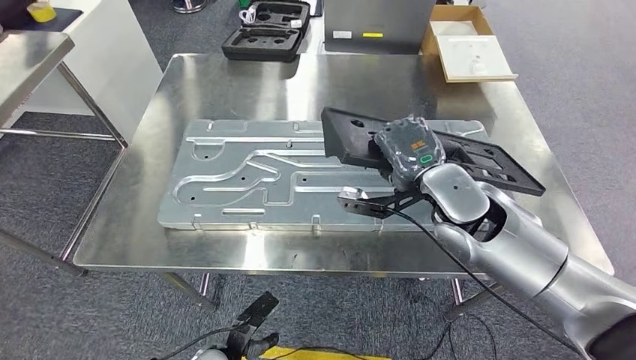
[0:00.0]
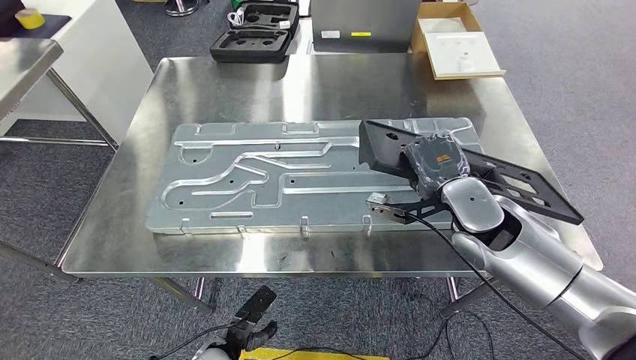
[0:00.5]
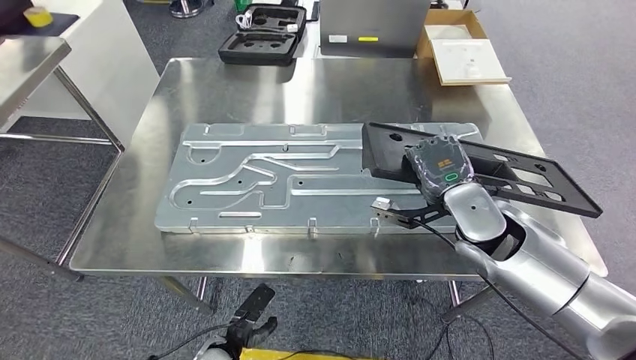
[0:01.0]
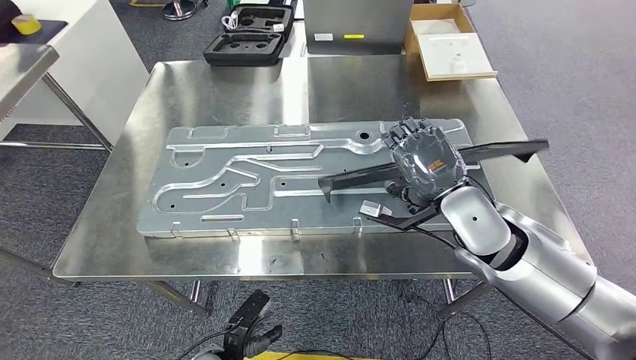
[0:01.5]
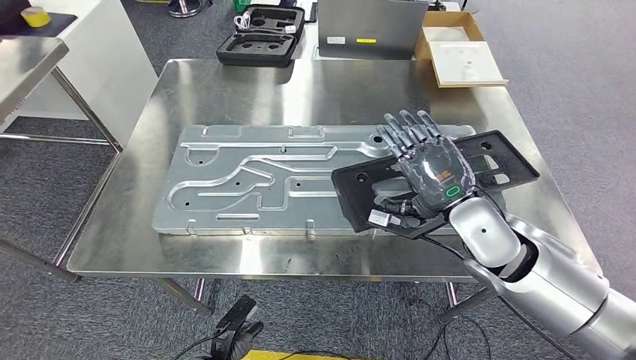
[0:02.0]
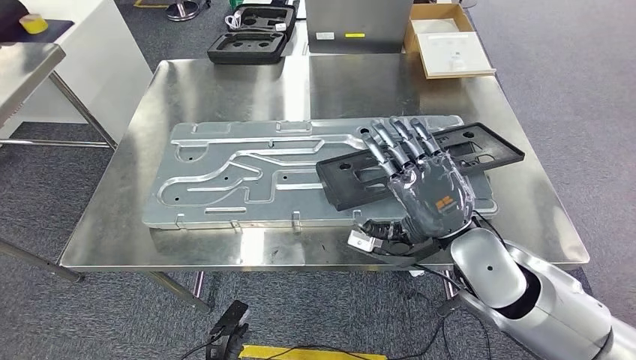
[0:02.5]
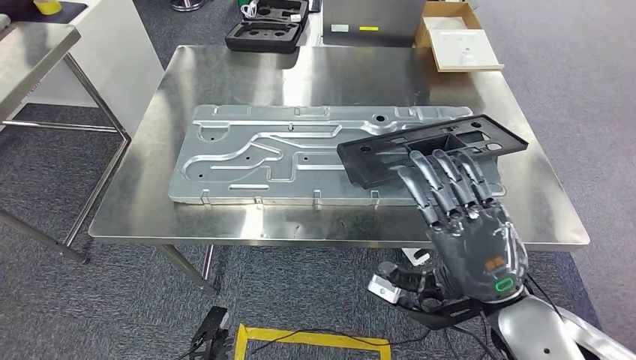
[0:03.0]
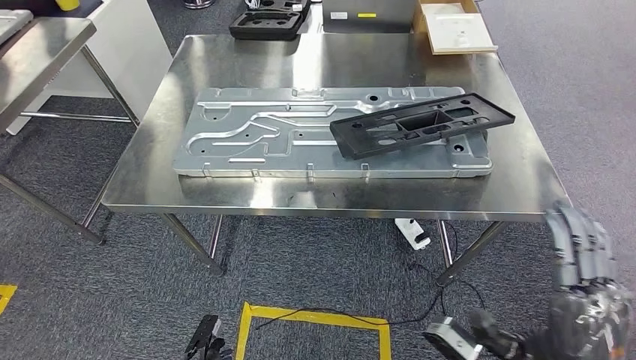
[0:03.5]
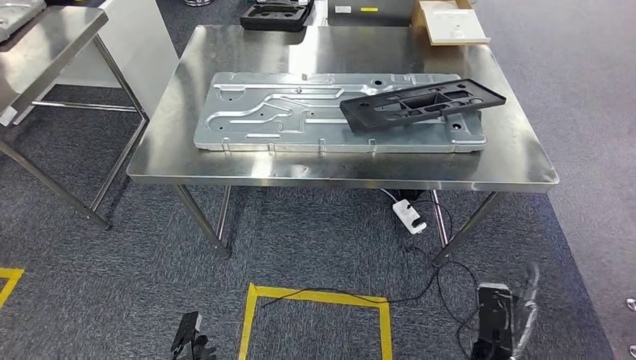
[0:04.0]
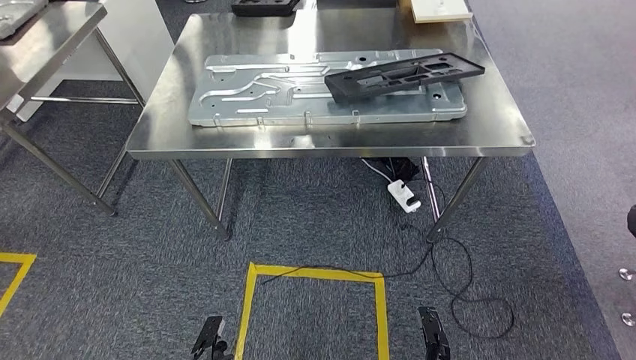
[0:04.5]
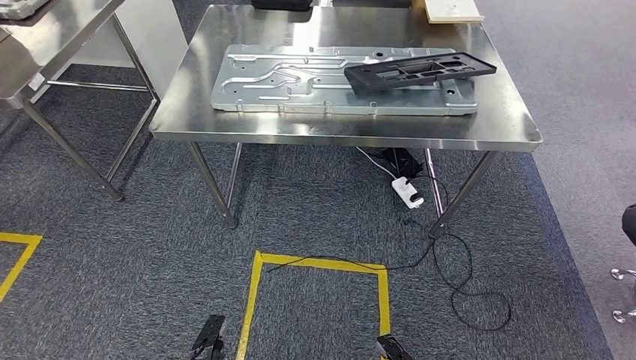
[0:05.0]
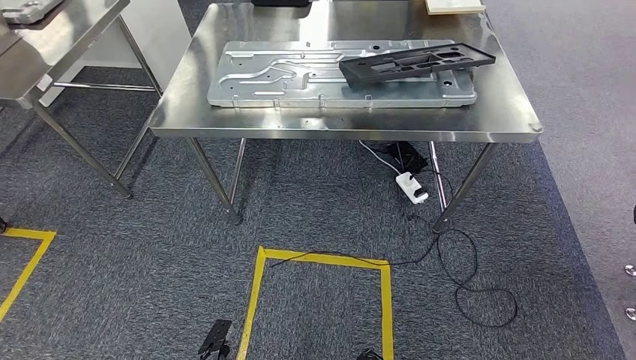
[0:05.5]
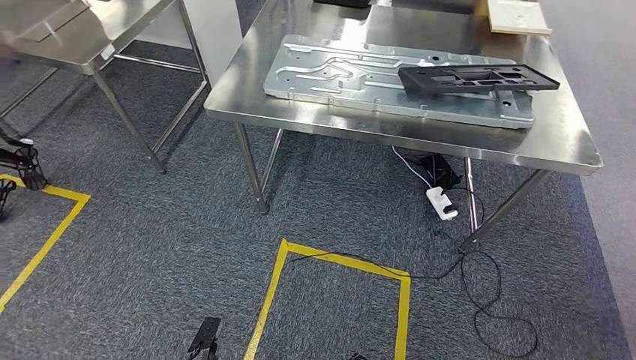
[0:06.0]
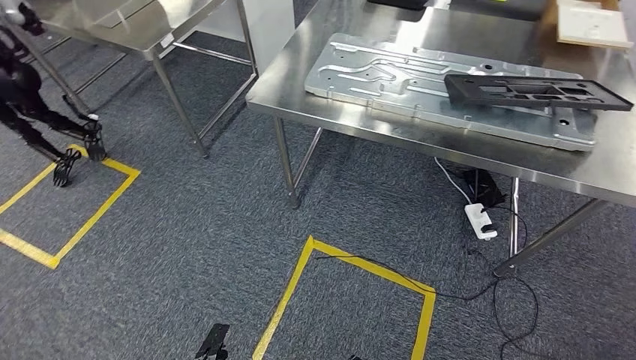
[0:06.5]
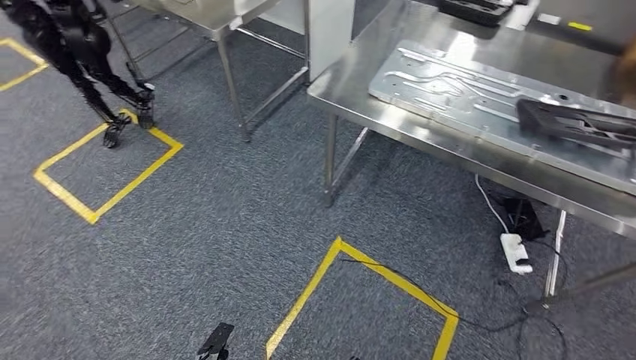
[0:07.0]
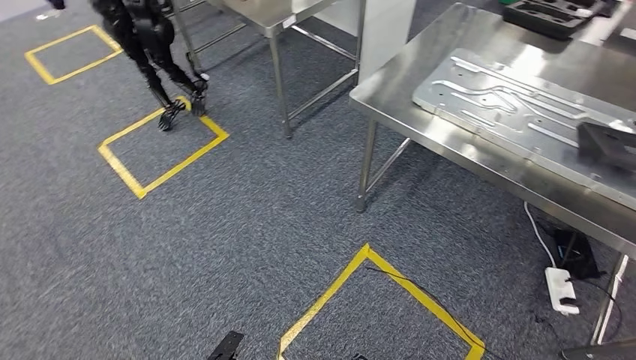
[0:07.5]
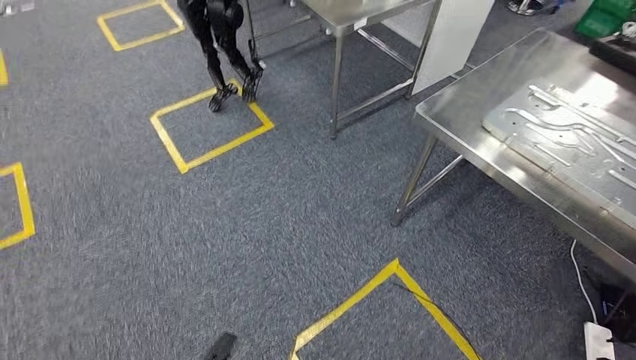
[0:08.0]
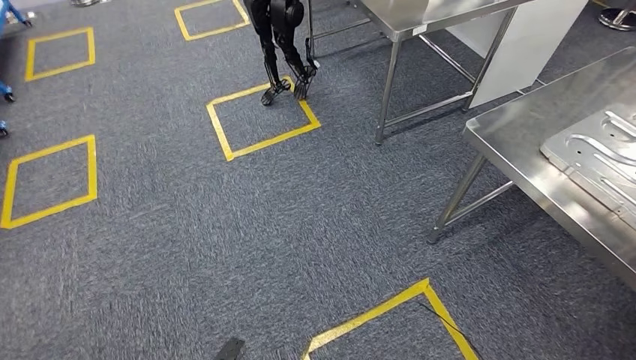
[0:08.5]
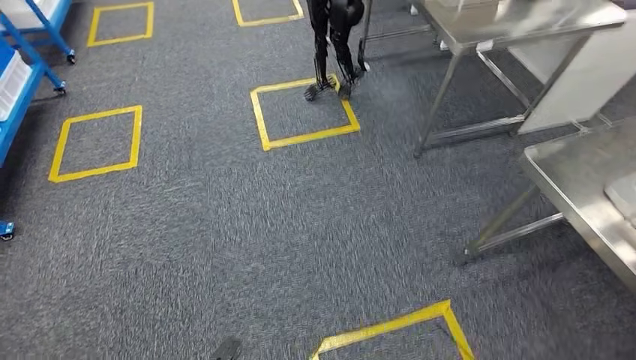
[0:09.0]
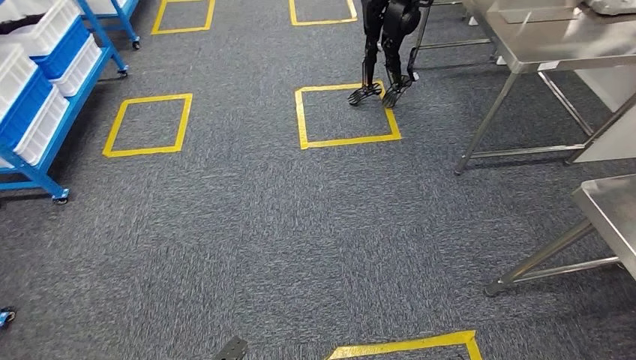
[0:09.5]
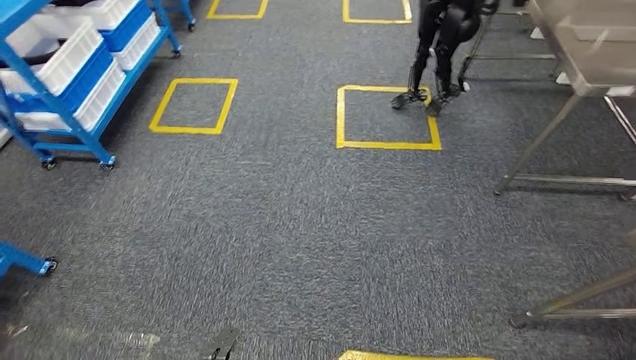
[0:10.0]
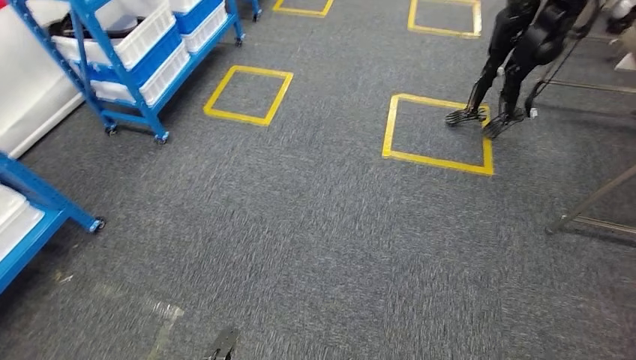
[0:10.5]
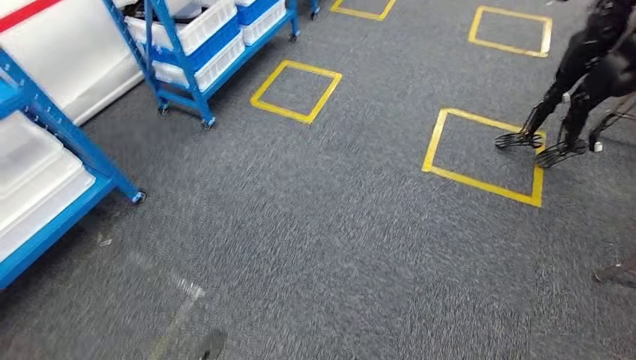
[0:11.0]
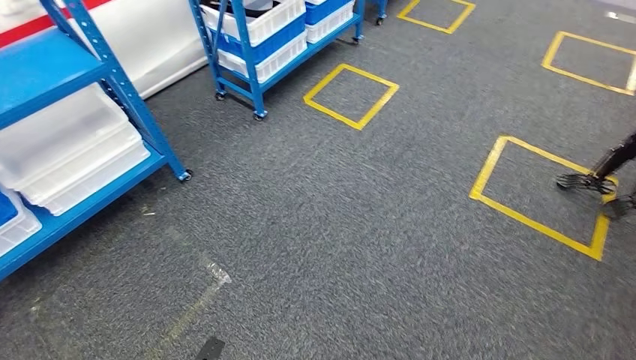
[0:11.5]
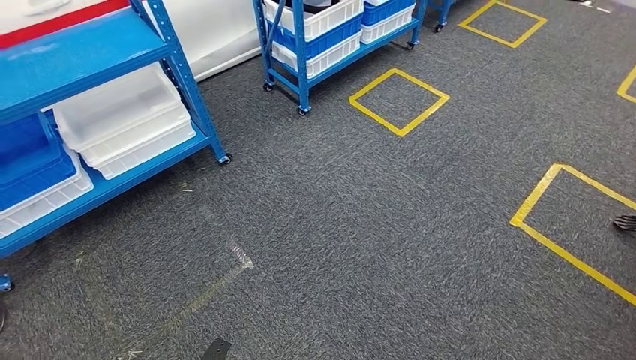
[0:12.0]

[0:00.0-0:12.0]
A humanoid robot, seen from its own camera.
Step, 0:00.0 to 0:04.0: Insert the large parts into the corresponding slots on the workbench.

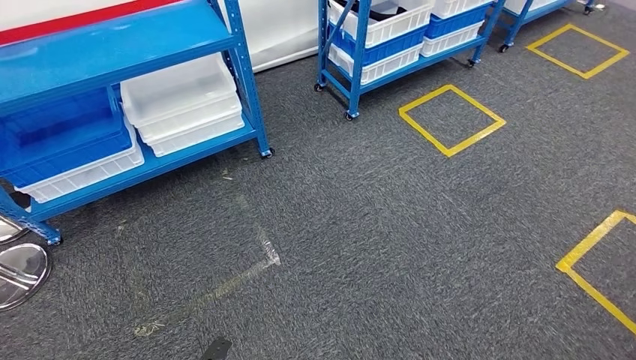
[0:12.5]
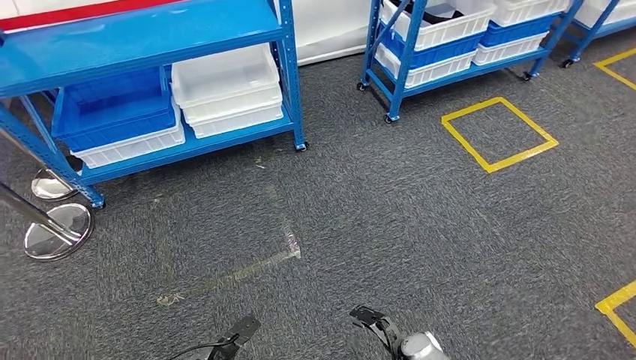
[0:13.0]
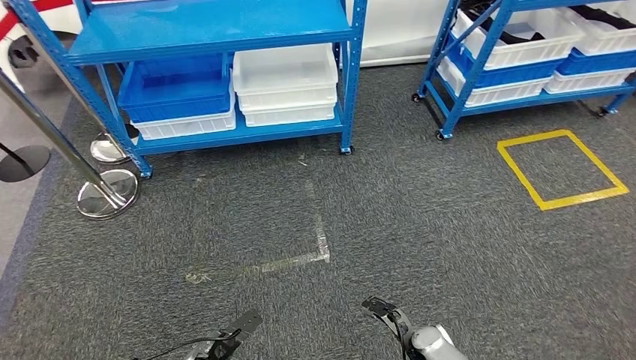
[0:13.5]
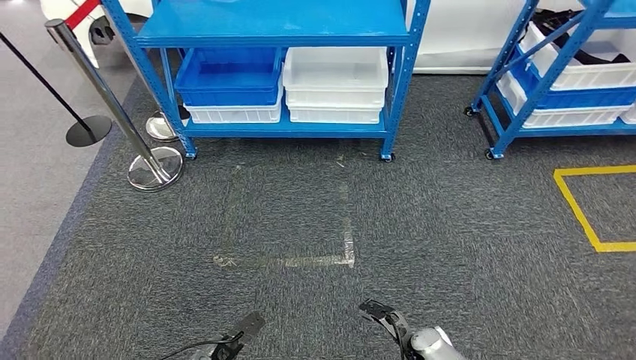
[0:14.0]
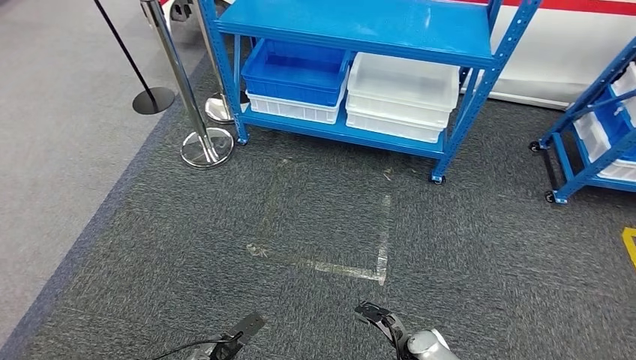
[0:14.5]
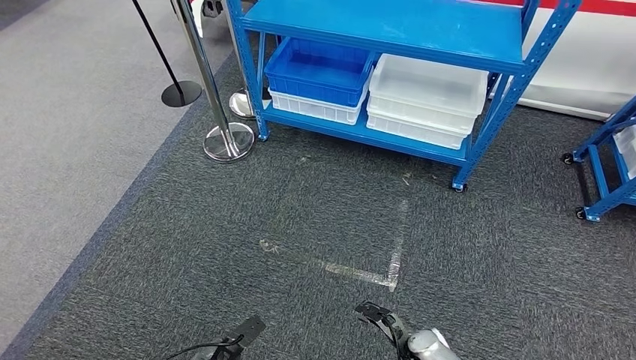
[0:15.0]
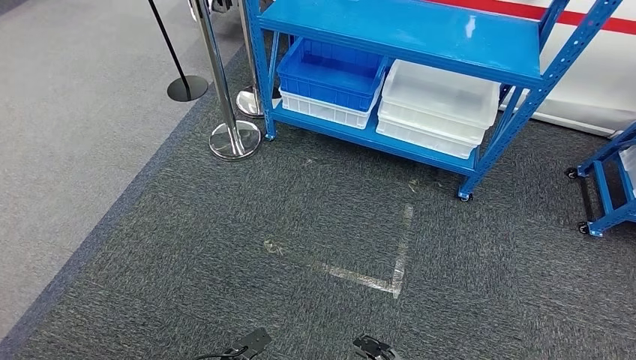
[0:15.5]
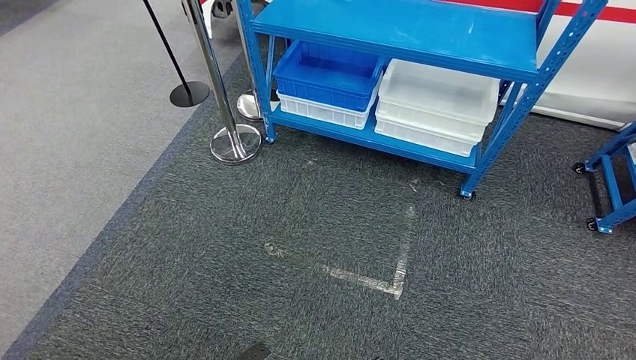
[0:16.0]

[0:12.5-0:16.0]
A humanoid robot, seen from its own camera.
Step, 0:12.5 to 0:16.0: Return to the initial position at the shelf.

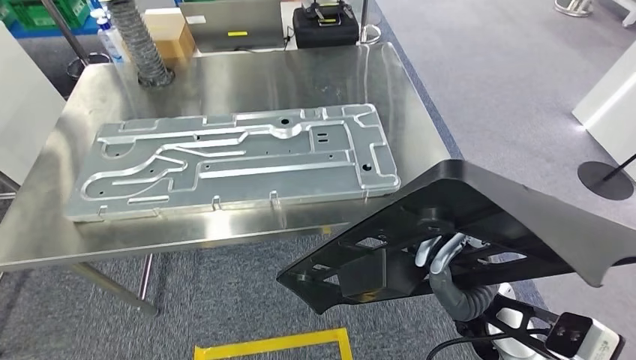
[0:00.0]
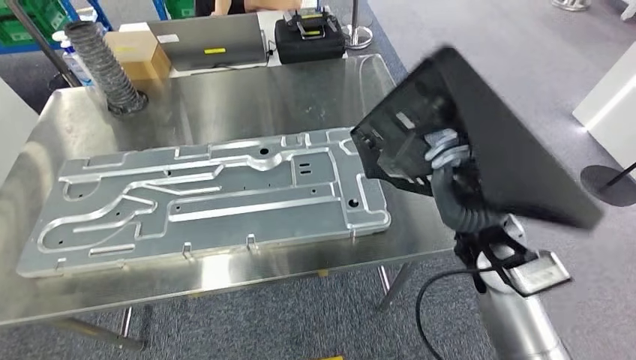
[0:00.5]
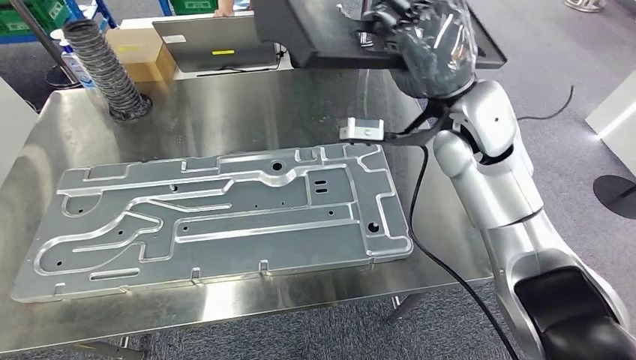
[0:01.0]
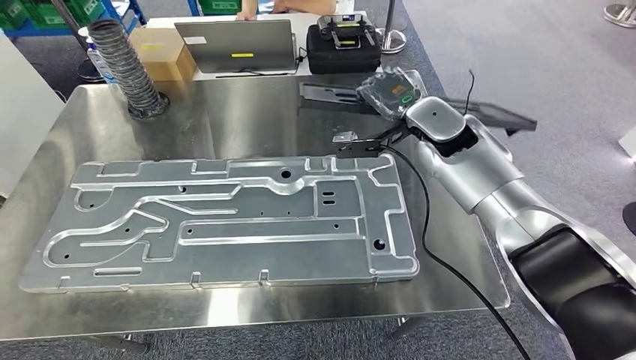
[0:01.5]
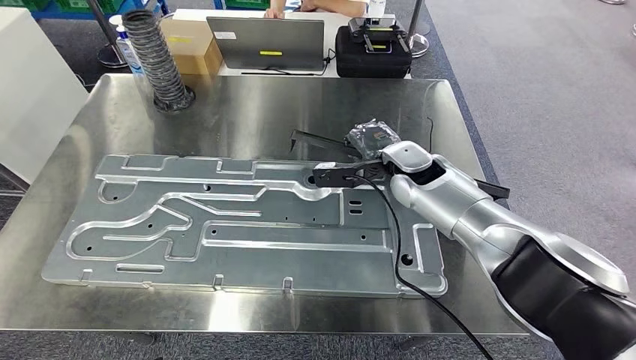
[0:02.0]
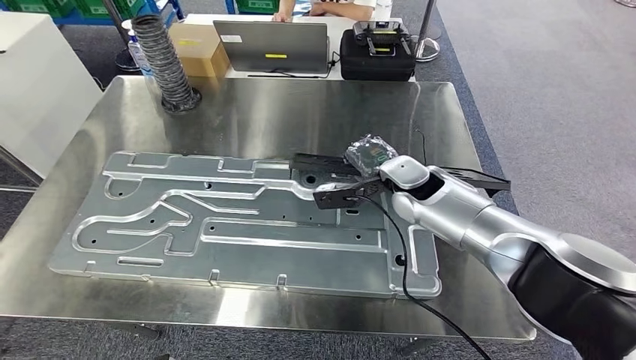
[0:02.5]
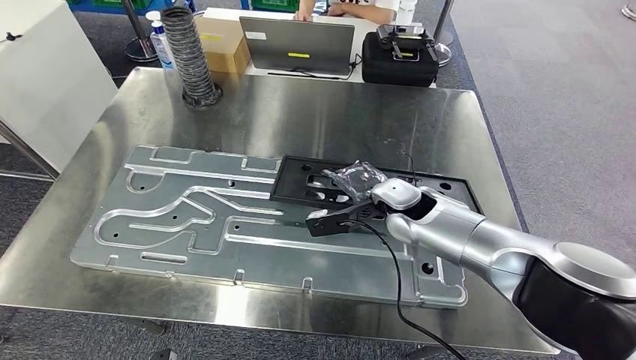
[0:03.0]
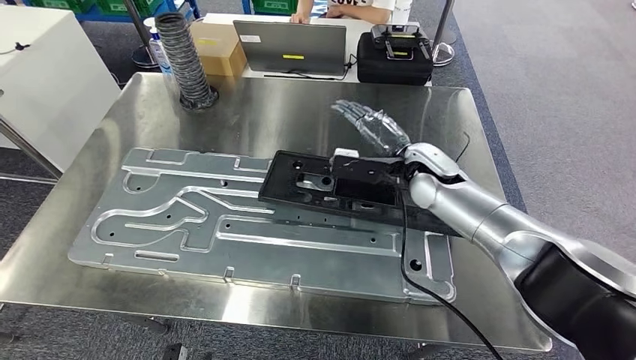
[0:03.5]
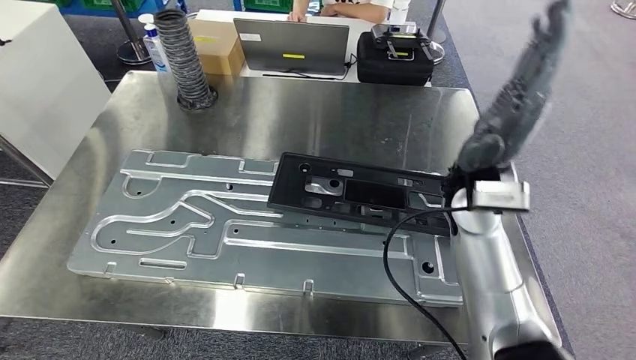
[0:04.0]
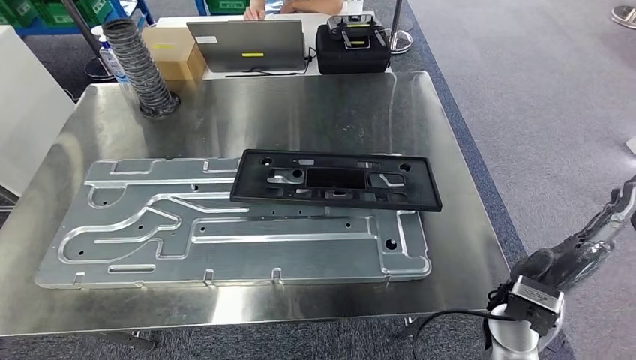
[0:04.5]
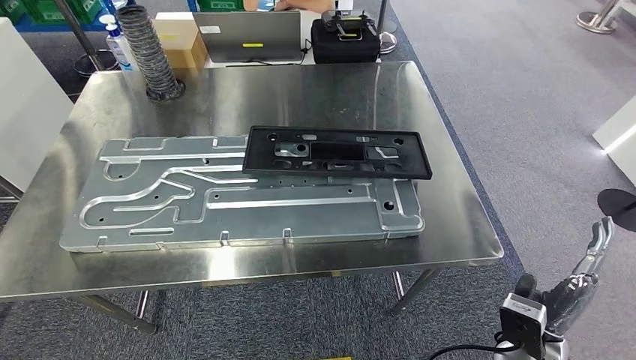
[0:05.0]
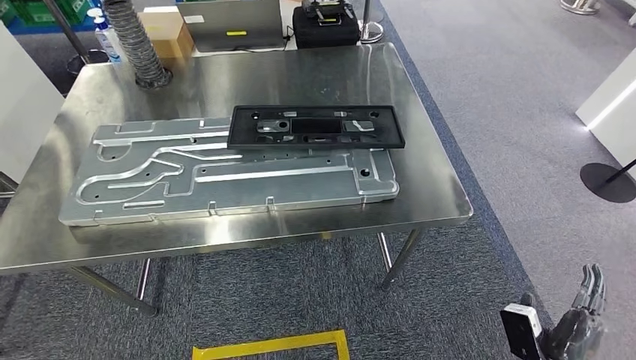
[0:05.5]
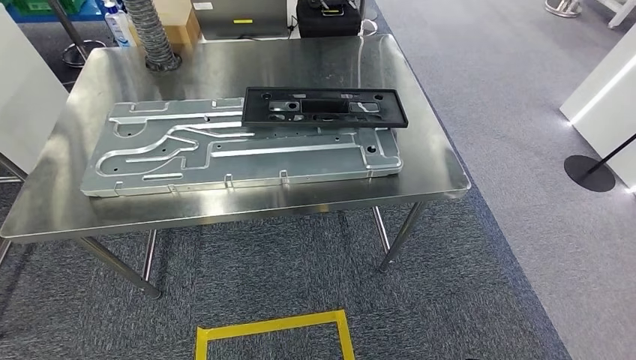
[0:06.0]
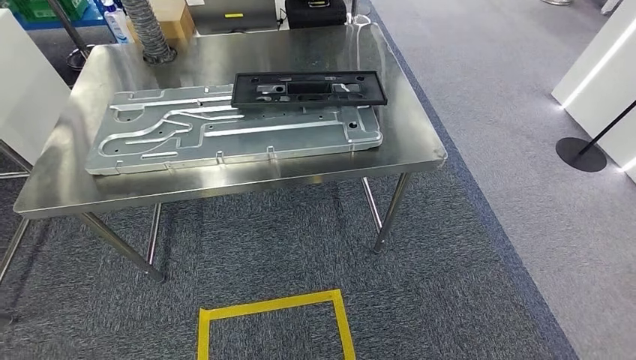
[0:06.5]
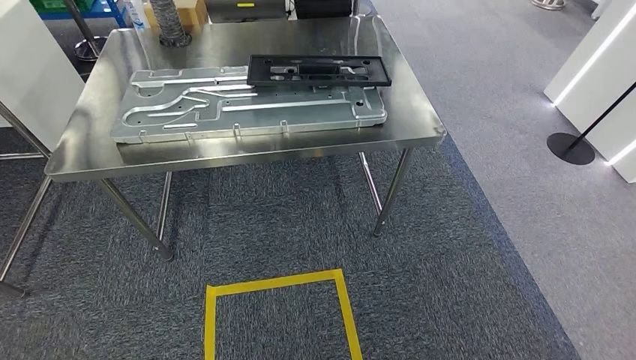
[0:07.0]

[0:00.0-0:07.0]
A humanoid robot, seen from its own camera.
Step, 0:01.0 to 0:03.5: Insert the large parts into the corresponding slots on the workbench.
